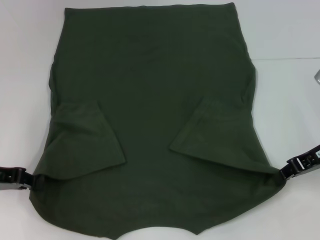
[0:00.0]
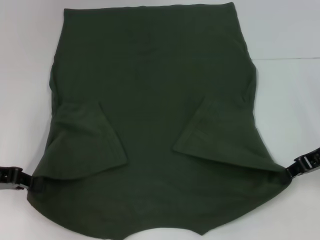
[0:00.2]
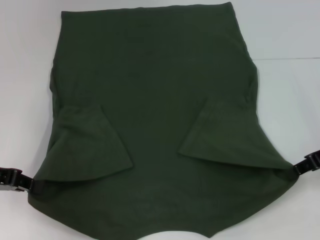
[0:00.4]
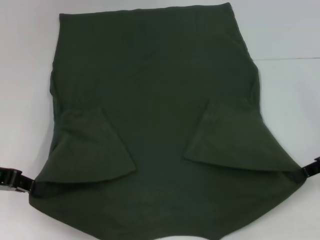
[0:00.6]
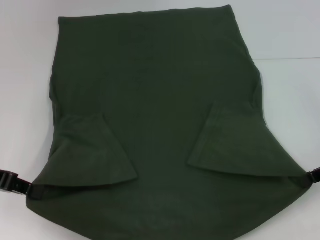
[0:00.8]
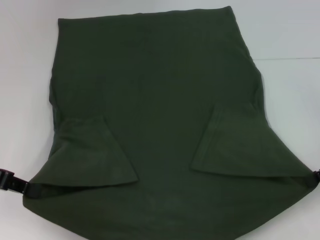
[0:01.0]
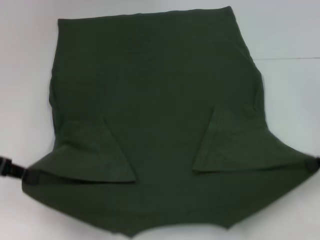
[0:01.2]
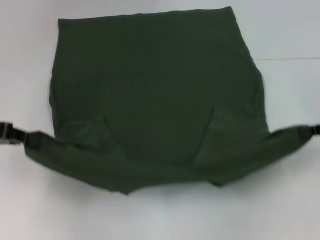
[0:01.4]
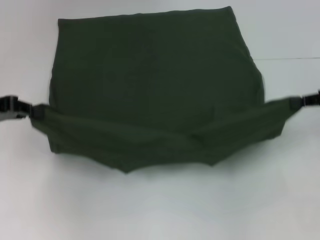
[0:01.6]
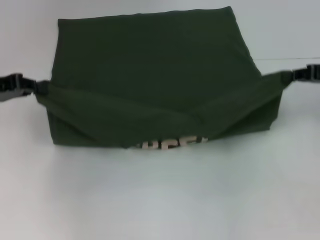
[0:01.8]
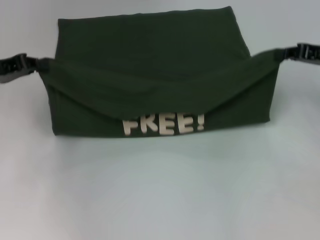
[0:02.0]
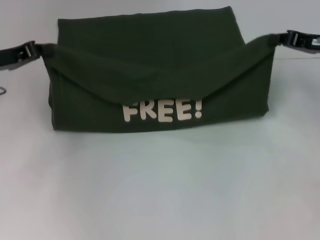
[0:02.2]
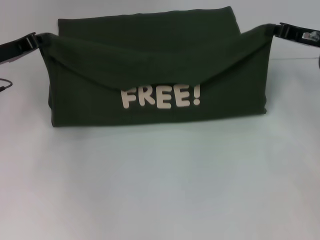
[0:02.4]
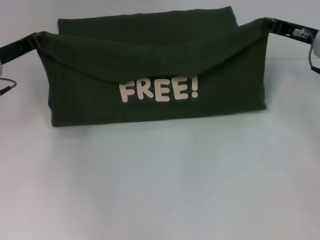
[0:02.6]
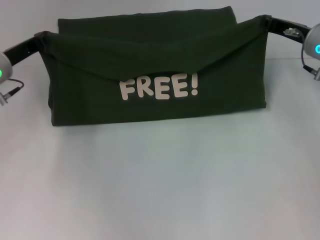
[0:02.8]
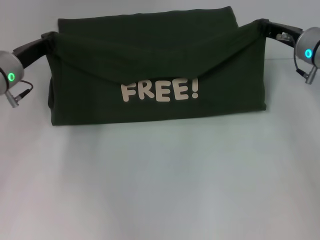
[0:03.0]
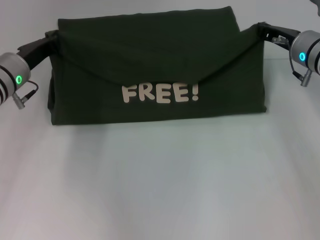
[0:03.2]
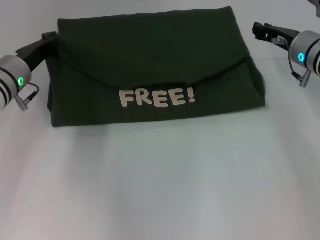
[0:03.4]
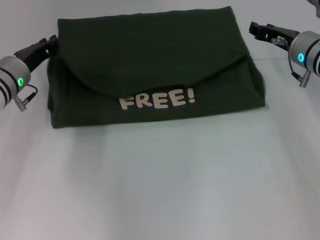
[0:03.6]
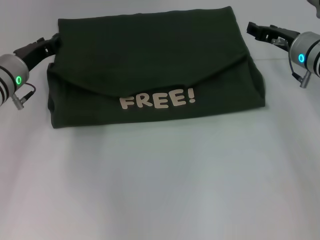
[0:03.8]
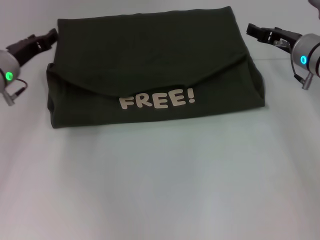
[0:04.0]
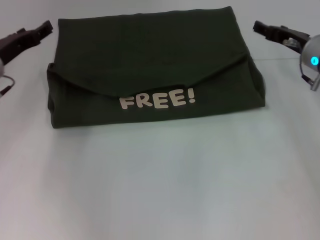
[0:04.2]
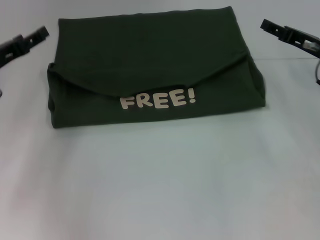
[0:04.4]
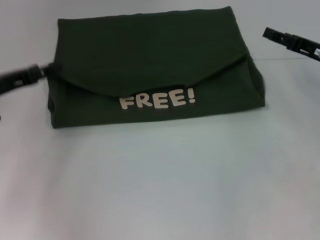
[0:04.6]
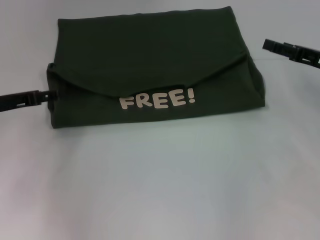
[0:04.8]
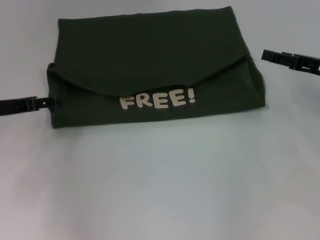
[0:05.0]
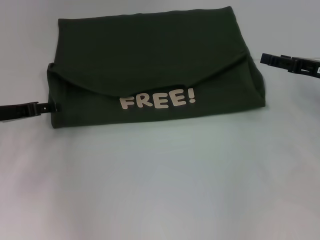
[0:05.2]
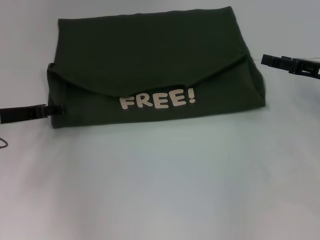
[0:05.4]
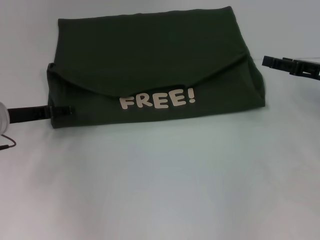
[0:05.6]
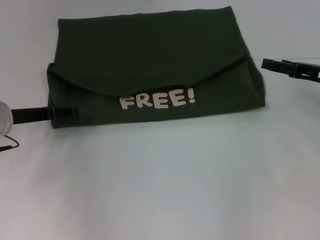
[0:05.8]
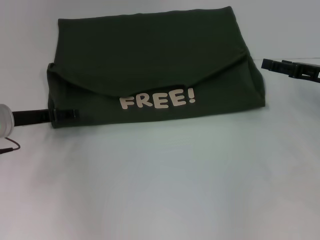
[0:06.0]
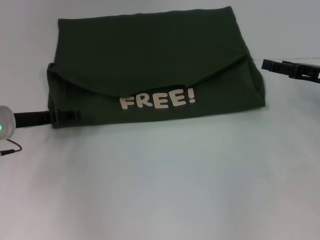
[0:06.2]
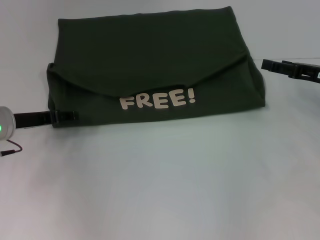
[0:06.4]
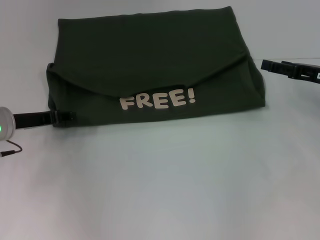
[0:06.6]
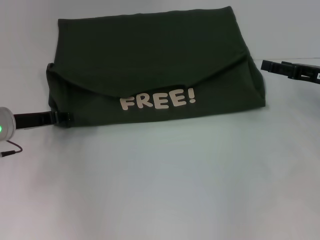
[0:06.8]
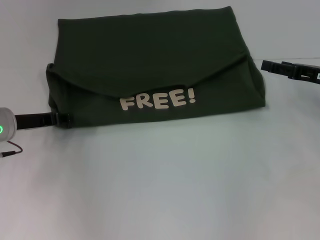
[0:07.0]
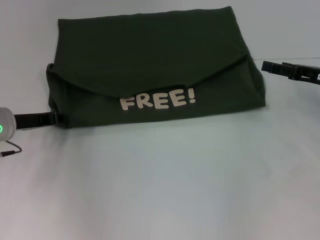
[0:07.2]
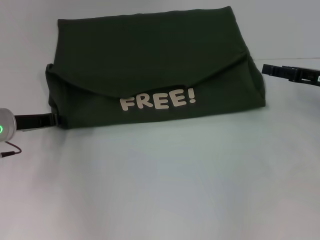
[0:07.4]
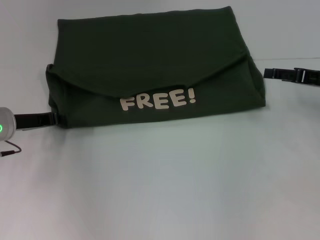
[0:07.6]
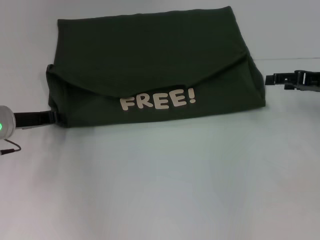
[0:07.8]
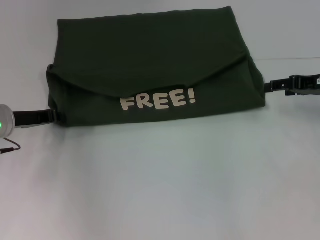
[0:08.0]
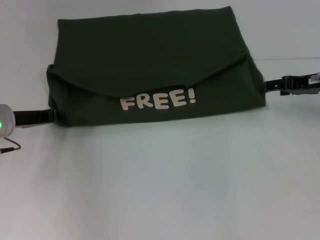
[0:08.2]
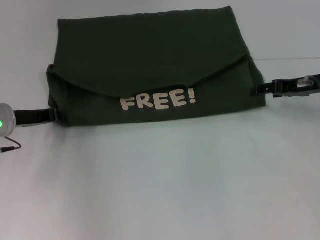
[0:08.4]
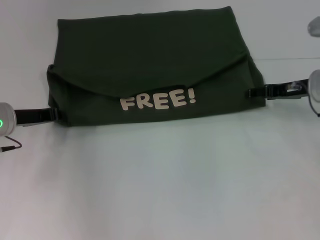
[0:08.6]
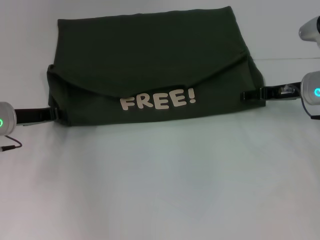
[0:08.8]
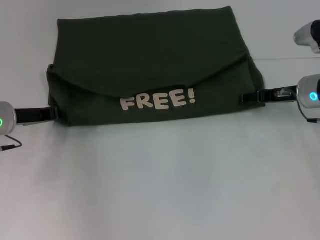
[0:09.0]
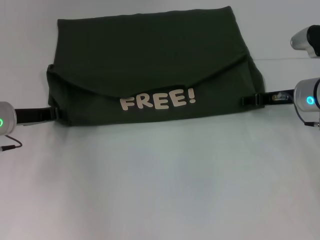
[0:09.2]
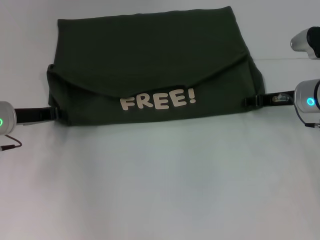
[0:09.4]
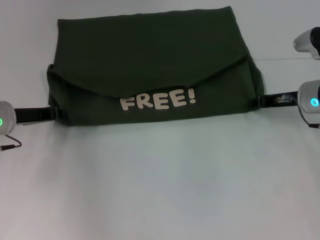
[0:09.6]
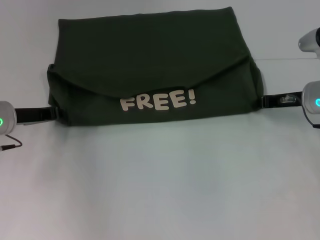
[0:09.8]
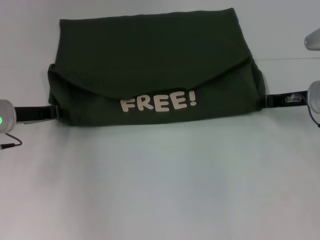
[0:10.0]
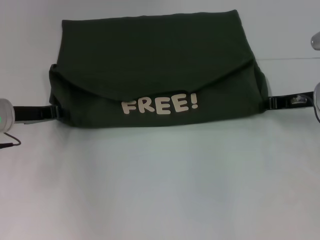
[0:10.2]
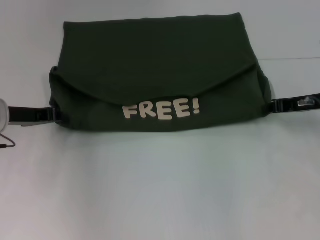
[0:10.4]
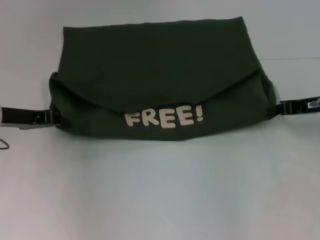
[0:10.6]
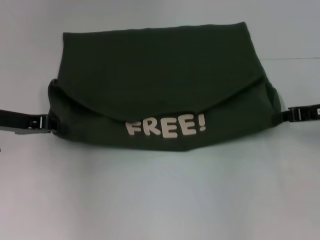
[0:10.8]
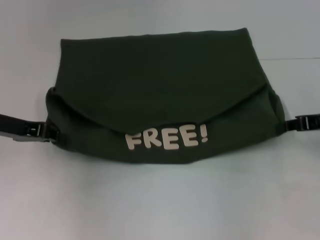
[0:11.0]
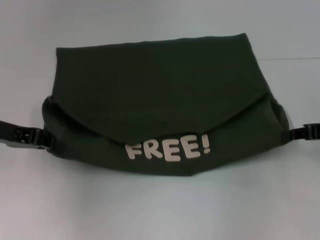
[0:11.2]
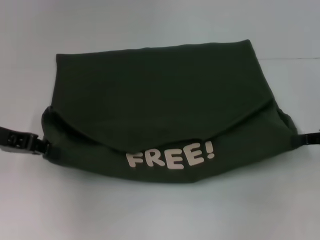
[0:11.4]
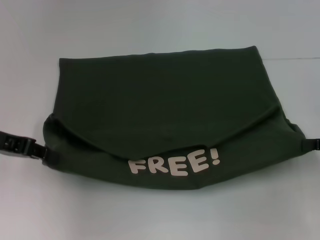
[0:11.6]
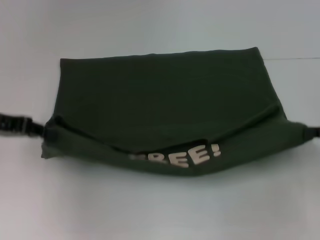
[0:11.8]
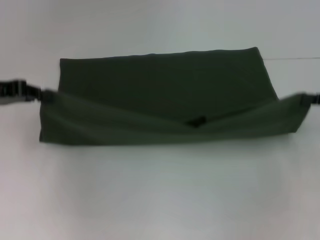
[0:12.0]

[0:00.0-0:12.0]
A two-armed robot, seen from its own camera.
Step, 0.0 to 3.6 s: Fold the clothes with your left hand.
Step, 0.0 to 3.6 s: Fold the clothes with your right hand.
Step, 3.8 to 11.6 s: Pull the clothes with your left hand.
Step, 3.8 to 11.6 s: Pull the clothes with your right hand.
0.0 to 1.6 s: The right gripper goes some 5 cm to the right. Meanwhile the left gripper moves upward, approximately 5 cm.
1.6 to 3.0 s: The left gripper is displaced to the right, forward and downward by about 15 cm; the right gripper is displaced to the left and forward by about 15 cm.
3.0 to 4.4 s: The left gripper goes about 5 cm to the left, and opens up. The right gripper shifts by some 5 cm, and opens its fingers.
4.4 to 6.0 s: The right gripper shifts by about 5 cm.
6.0 to 7.6 s: The left gripper closes up.
7.6 to 9.0 s: The right gripper goes approximately 5 cm to the left.
9.0 to 10.4 s: The right gripper closes.
10.4 to 12.0 s: The right gripper travels backward and to the right by approximately 10 cm. Meanwhile the left gripper heads upward, covering approximately 10 cm.

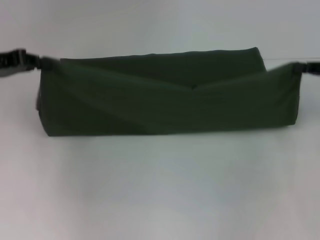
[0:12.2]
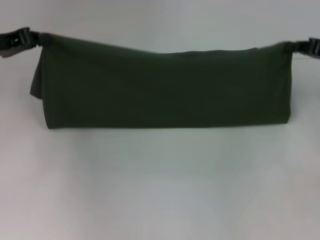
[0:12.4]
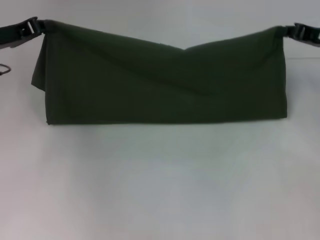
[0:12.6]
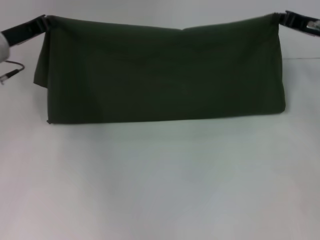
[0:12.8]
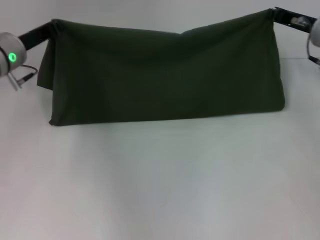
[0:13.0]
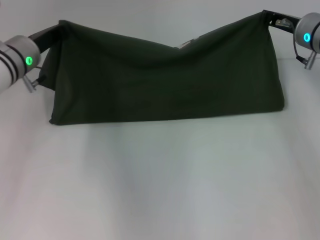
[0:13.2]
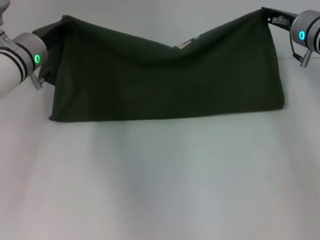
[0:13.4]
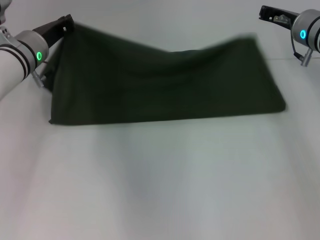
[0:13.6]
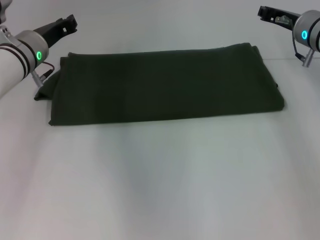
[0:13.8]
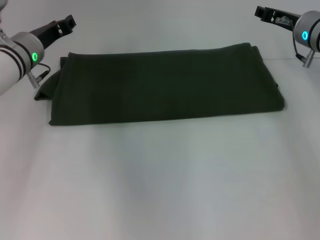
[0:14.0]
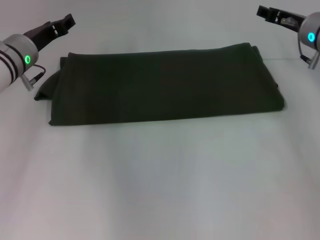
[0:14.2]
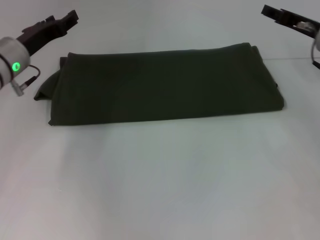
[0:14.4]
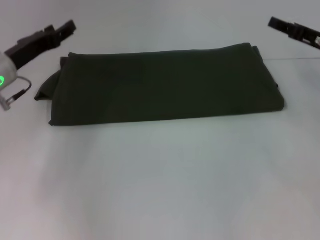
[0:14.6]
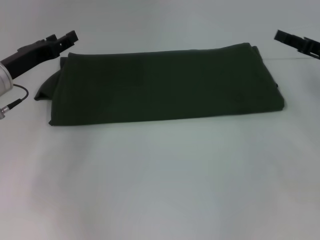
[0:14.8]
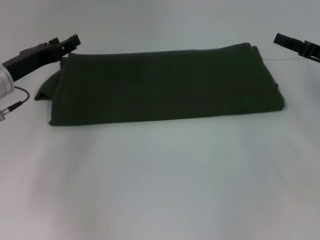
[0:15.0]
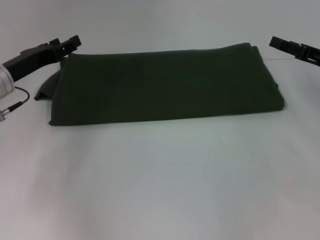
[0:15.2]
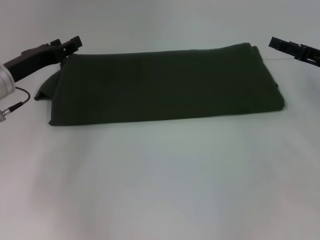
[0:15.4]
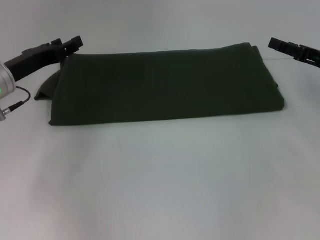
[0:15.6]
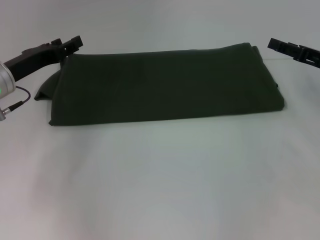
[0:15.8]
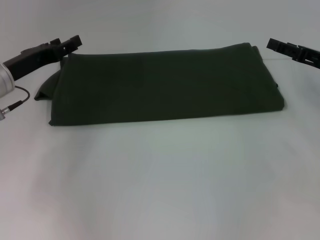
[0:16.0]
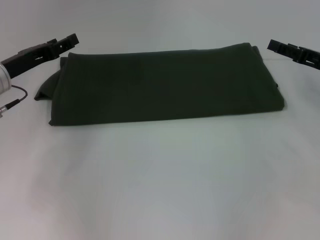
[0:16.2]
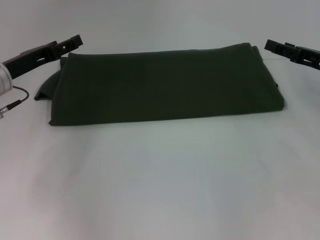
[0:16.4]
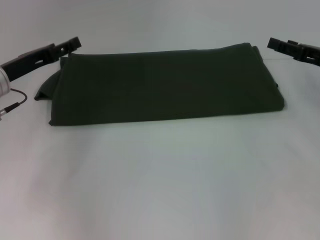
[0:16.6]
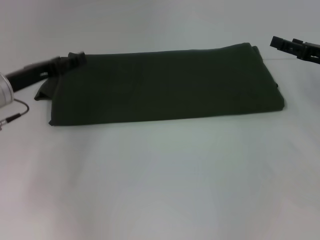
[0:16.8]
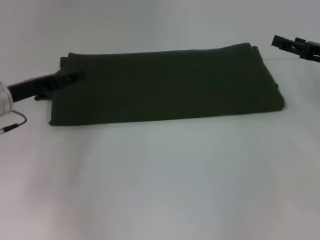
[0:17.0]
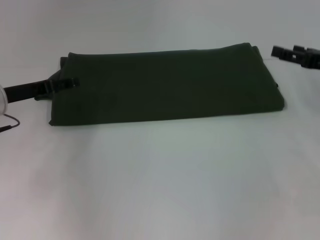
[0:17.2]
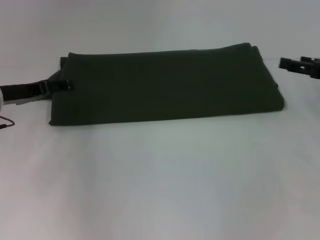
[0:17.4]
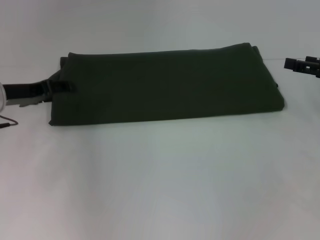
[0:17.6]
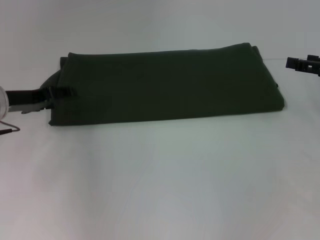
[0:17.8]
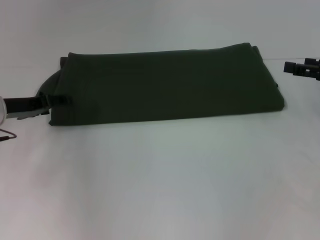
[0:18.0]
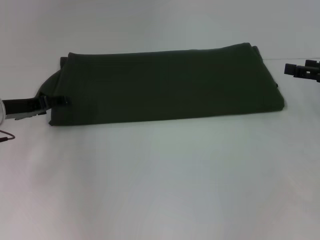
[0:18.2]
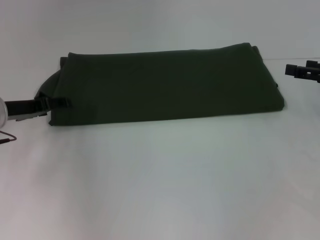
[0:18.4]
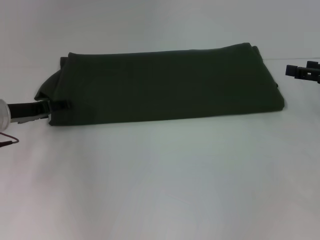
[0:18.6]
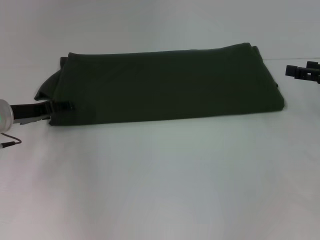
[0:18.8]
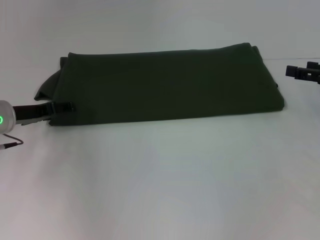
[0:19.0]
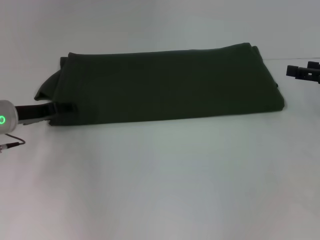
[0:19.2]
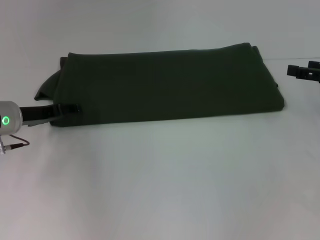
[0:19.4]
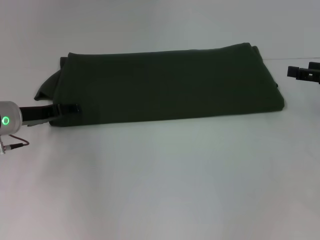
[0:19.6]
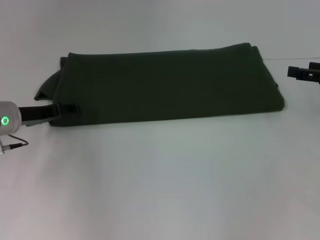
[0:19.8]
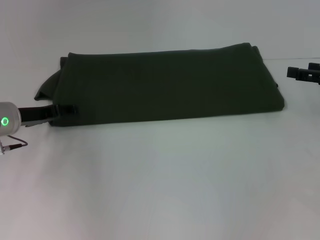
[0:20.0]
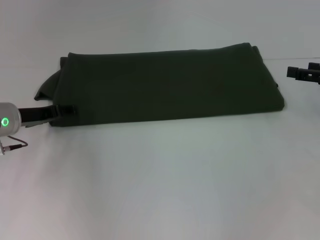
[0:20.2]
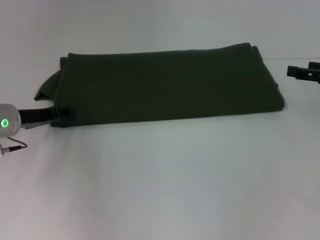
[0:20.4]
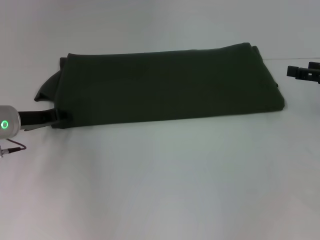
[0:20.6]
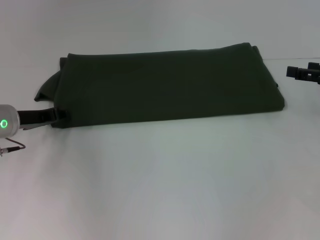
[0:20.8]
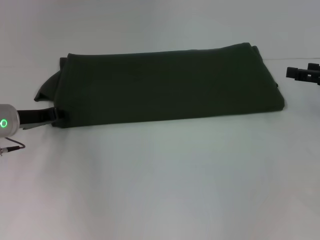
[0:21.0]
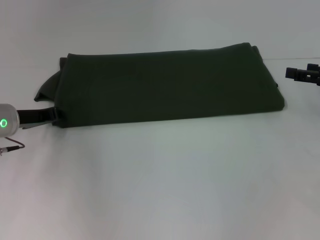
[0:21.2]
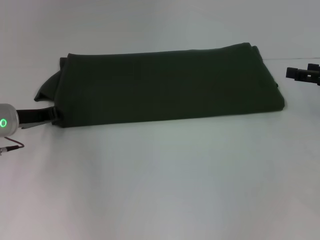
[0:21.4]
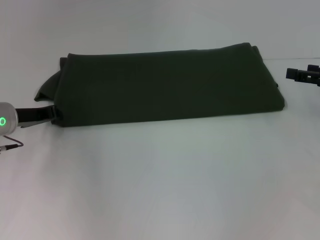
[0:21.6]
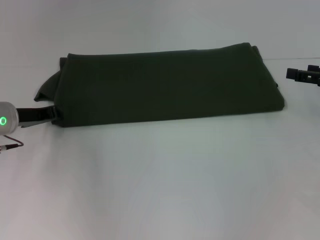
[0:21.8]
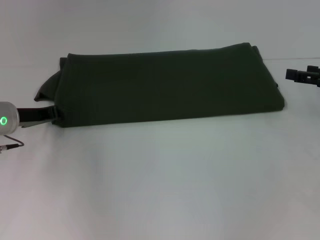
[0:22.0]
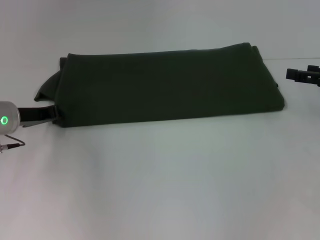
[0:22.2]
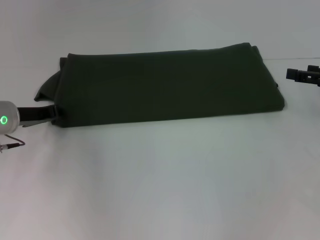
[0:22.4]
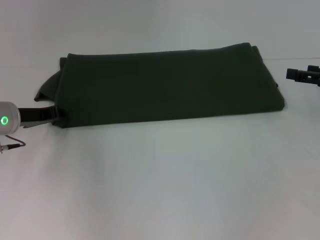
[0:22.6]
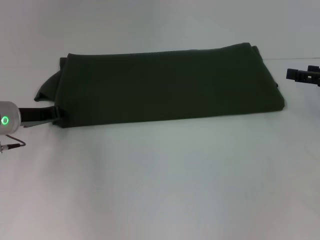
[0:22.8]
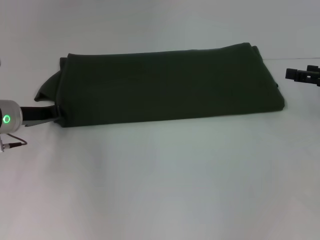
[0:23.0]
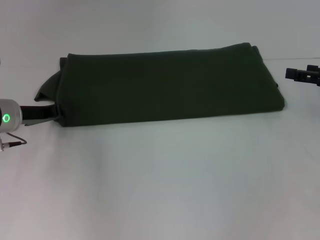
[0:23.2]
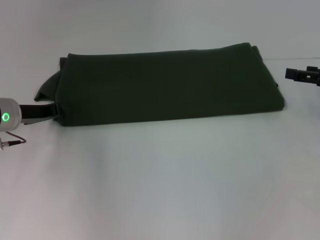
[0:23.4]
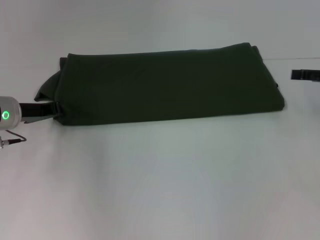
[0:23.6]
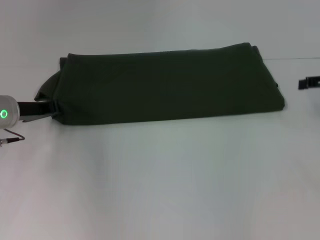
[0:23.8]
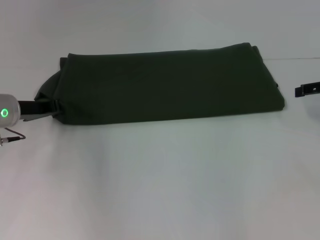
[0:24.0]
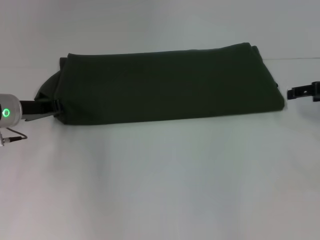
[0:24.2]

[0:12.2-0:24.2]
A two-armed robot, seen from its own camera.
Step, 12.2 to 13.6 s: Fold the clothes with your left hand.
Step, 12.2 to 13.6 s: Fold the clothes with your right hand.
12.2 to 13.8 s: The left gripper shifts approximately 15 cm to the right, forward and downward. Meanwhile the right gripper heads forward and to the left, covering roughly 15 cm.
13.8 to 15.2 s: The left gripper shifts roughly 10 cm backward and to the left, and opens up. Meanwhile the right gripper goes roughly 10 cm backward and to the right, and opens.
15.2 to 16.6 s: The two grippers keep their place.
18.2 to 19.8 s: The grippers move only a little.
19.8 to 21.2 s: The left gripper closes.
21.2 to 22.6 s: The two grippers keep their place.
